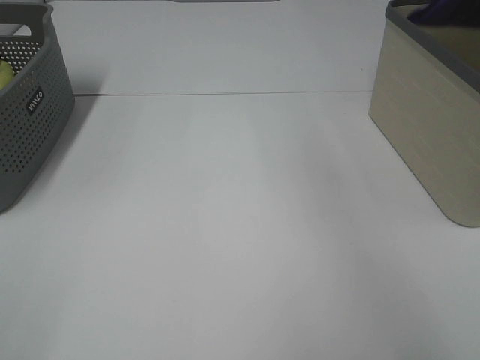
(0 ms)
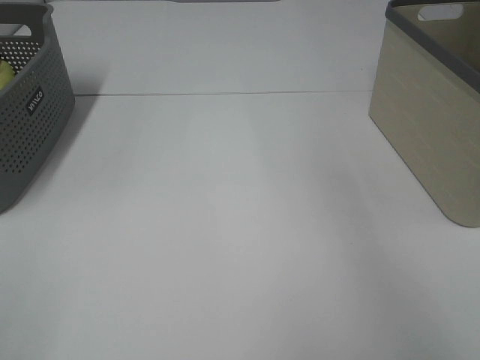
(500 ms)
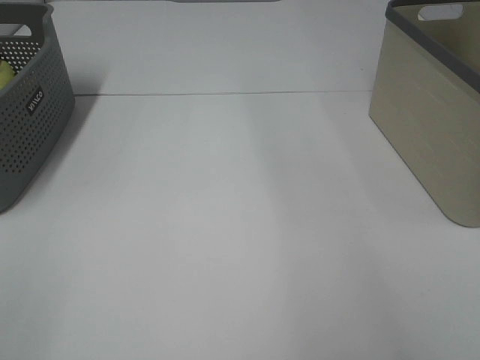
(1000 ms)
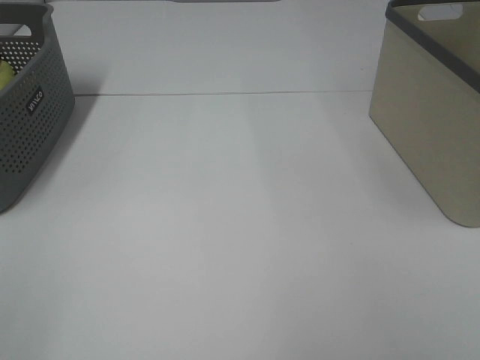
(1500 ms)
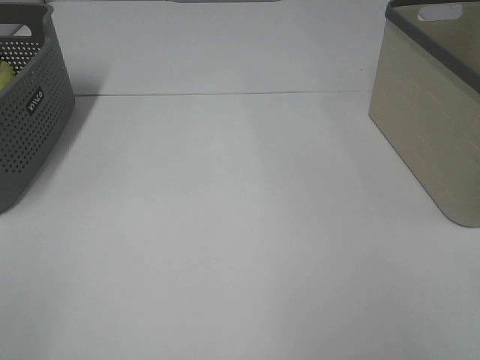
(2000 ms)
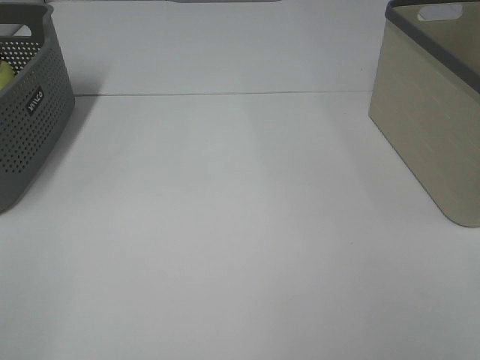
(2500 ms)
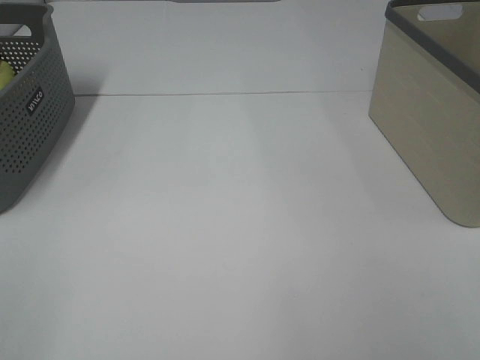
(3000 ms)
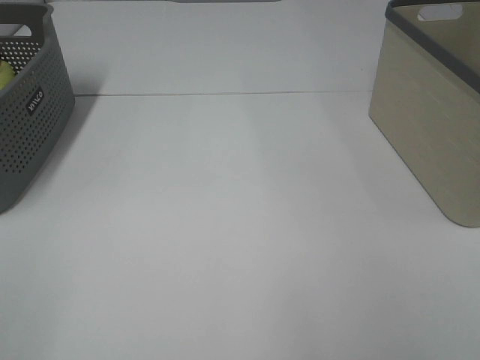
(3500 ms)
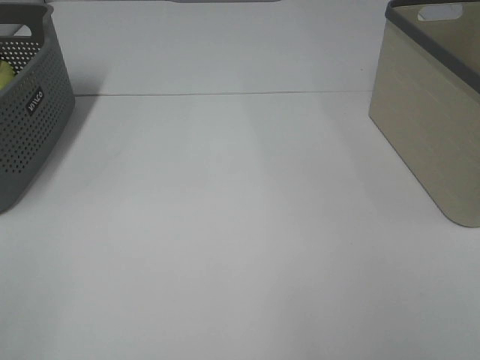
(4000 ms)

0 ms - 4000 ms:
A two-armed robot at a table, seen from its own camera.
0 ms - 2000 ms: The right gripper moves backward, about 40 cm, and opens.

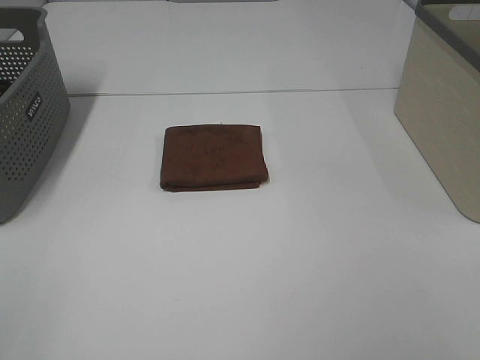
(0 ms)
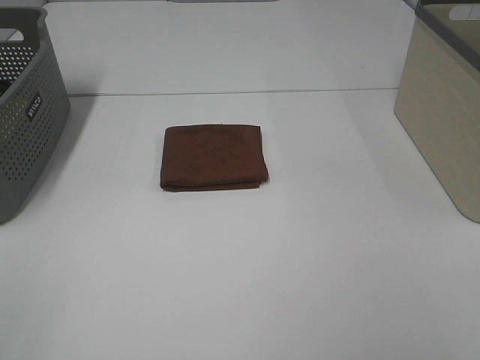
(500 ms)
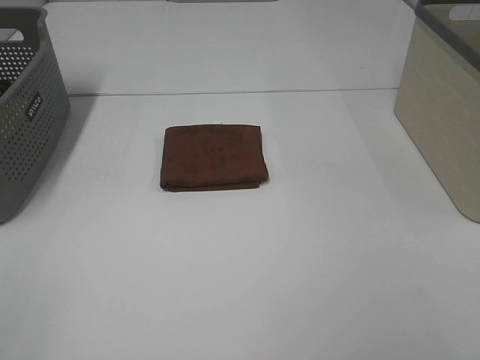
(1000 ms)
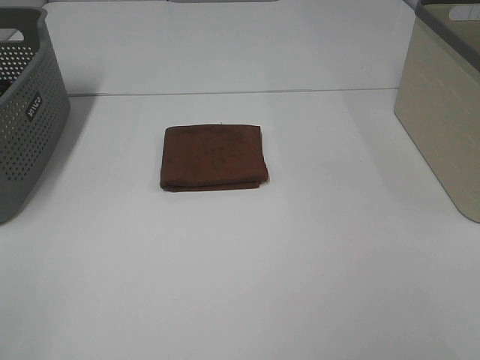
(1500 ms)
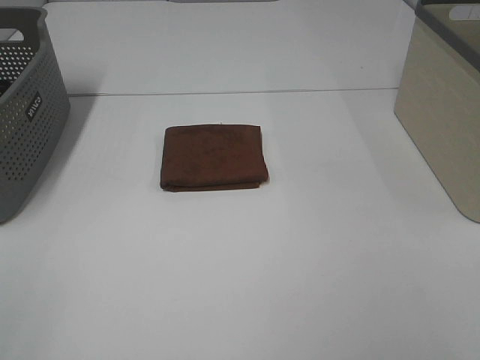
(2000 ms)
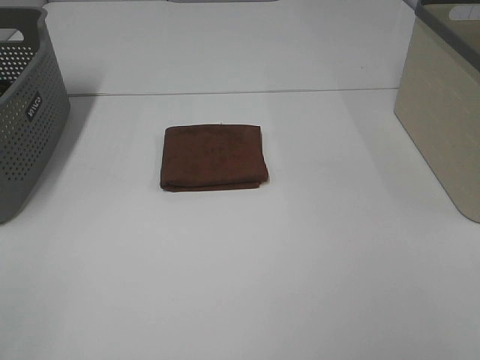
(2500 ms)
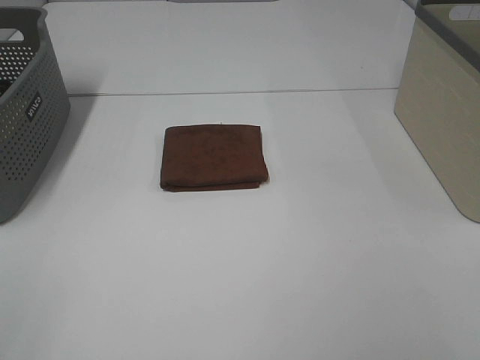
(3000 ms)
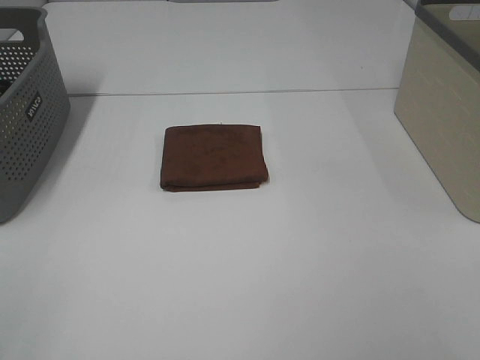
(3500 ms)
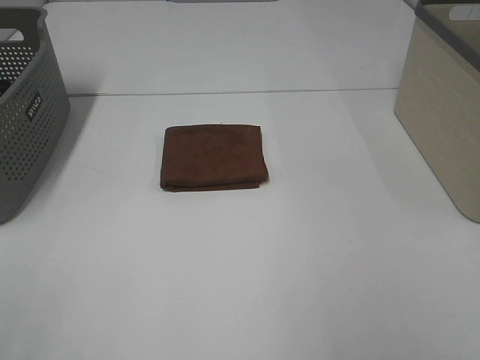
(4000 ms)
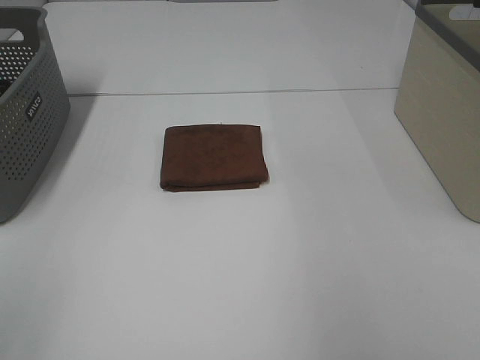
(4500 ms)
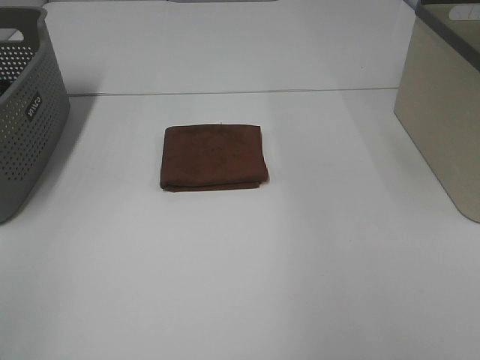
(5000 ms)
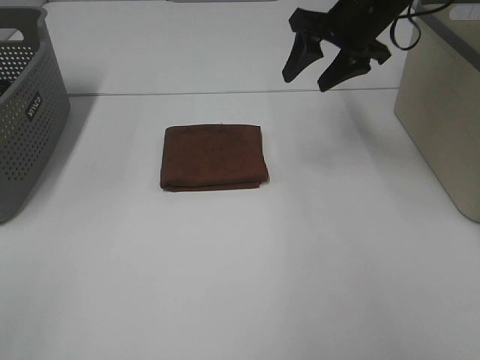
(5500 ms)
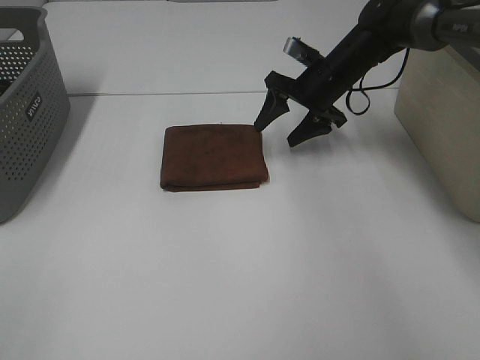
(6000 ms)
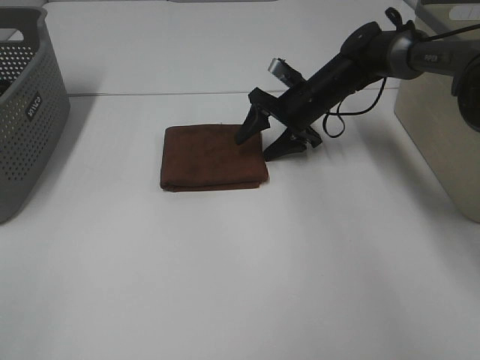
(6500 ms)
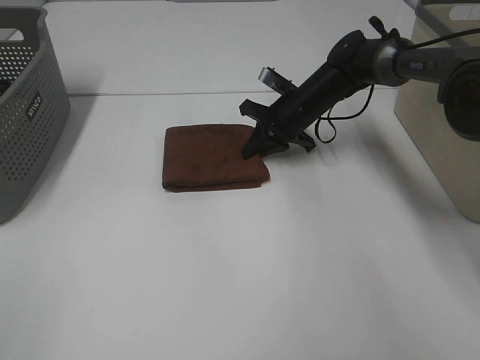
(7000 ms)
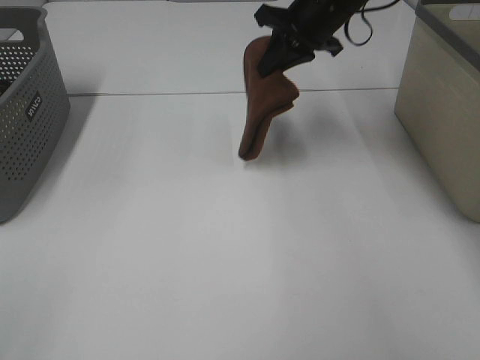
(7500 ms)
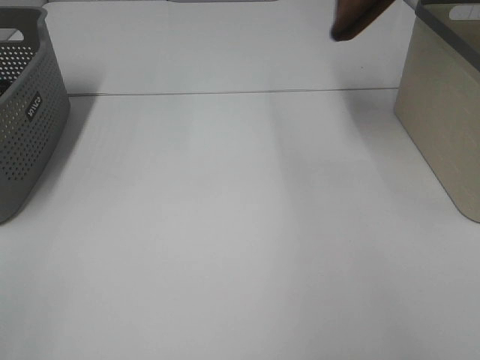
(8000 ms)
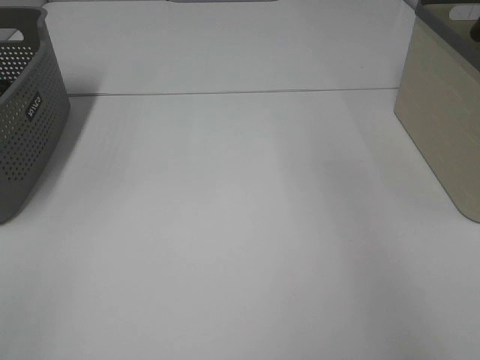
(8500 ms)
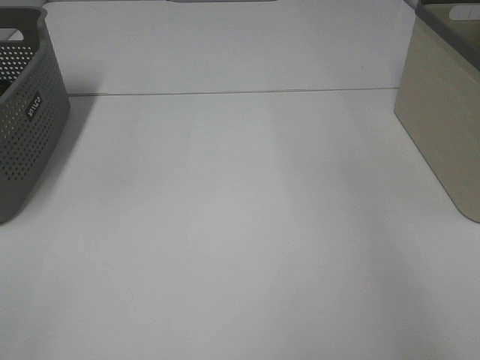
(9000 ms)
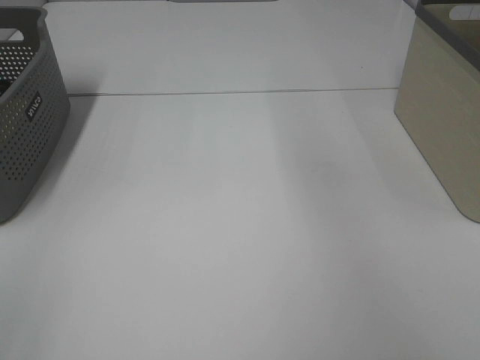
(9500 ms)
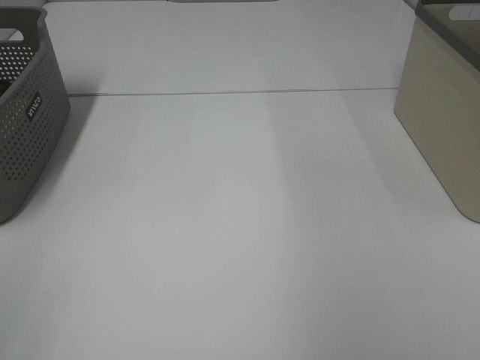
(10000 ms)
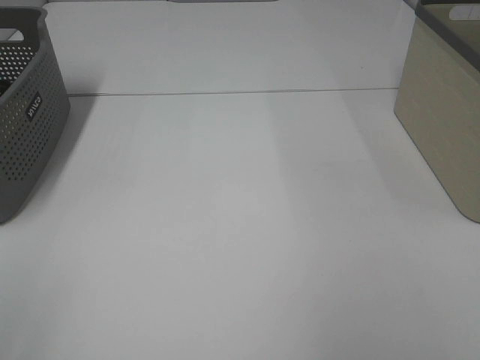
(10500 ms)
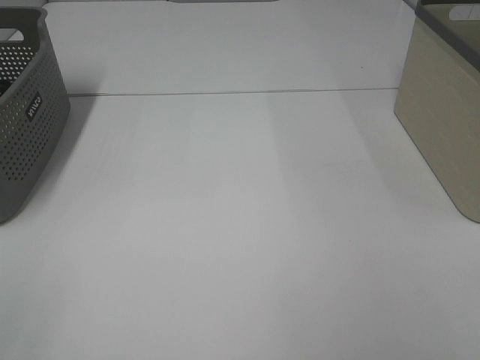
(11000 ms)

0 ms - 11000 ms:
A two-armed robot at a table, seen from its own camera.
Step, 0 ms - 6500 ms: Right hand: grab the folded brown towel.
Step, 7000 ms - 9000 ms: Right hand: place the brown towel in right basket.
0 ms - 3500 ms: The two grippers keep their place.
3500 ms - 5500 ms: The right gripper is displaced forward by about 50 cm.
5500 ms - 7500 ms: The right gripper moves some 15 cm downward and comes back, and closes its fingers.
7500 ms - 9000 ms: The right gripper goes roughly 25 cm to the right, and opens its fingers.

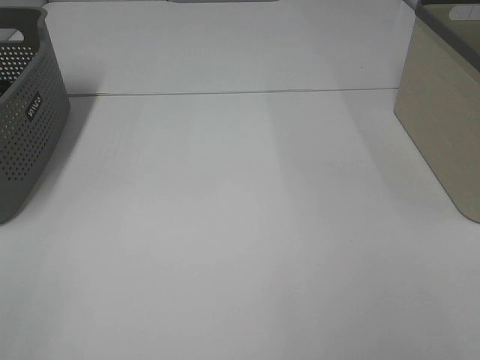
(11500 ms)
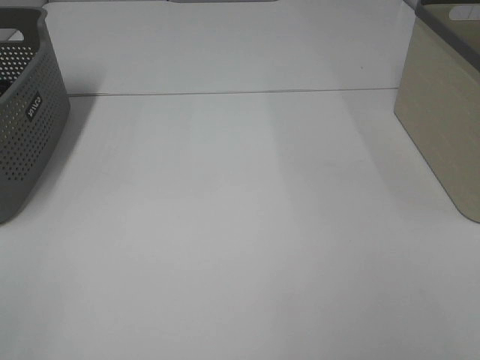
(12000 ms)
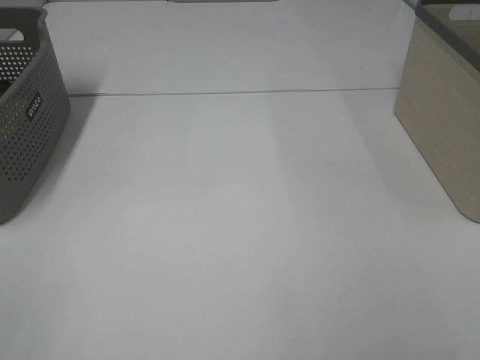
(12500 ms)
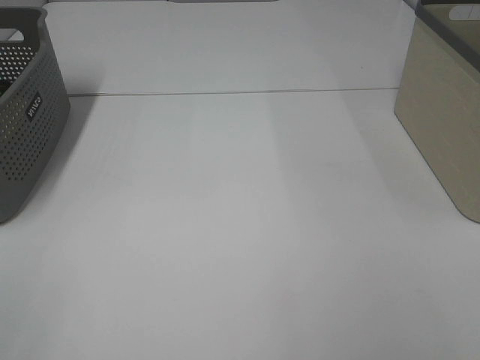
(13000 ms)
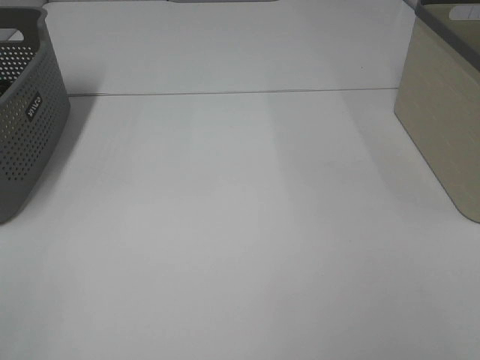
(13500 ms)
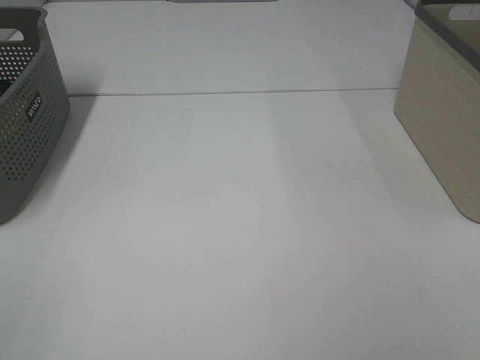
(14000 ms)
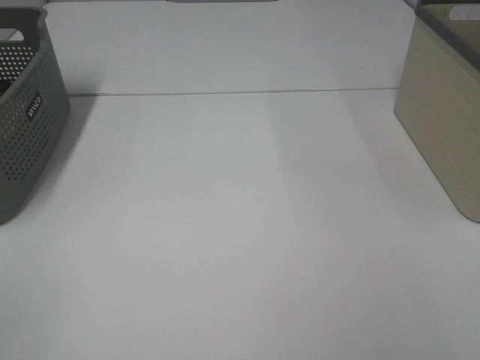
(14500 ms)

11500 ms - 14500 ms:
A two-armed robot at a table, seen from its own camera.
11500 ms - 13000 ms: Both grippers stay put.

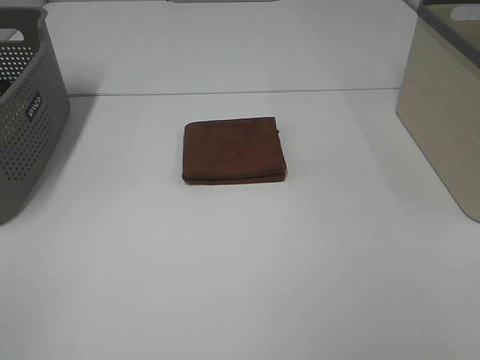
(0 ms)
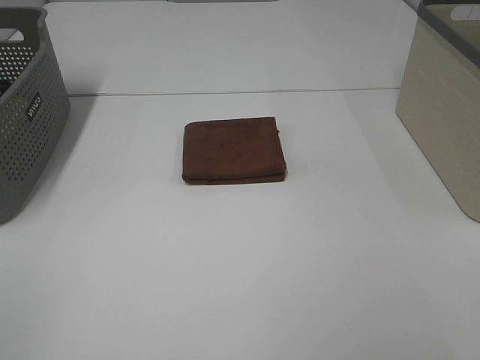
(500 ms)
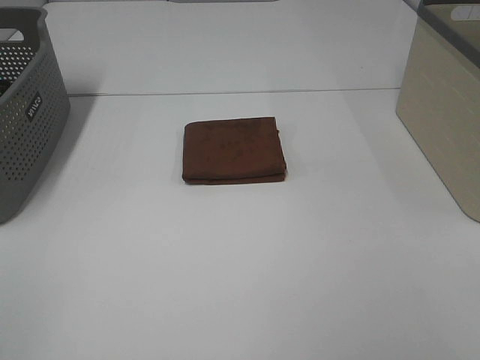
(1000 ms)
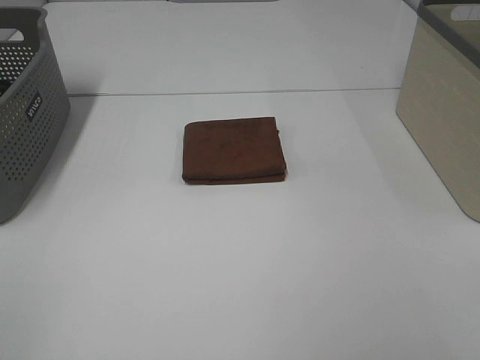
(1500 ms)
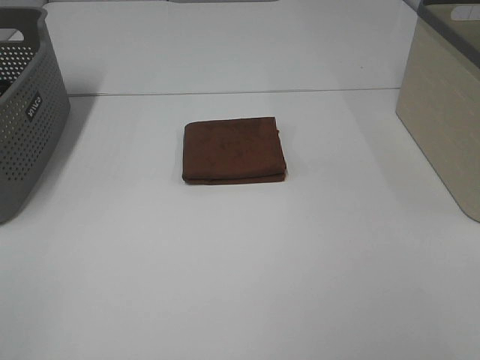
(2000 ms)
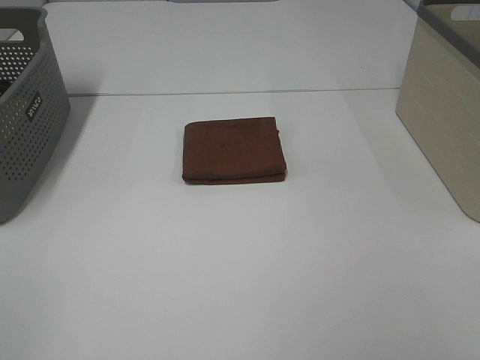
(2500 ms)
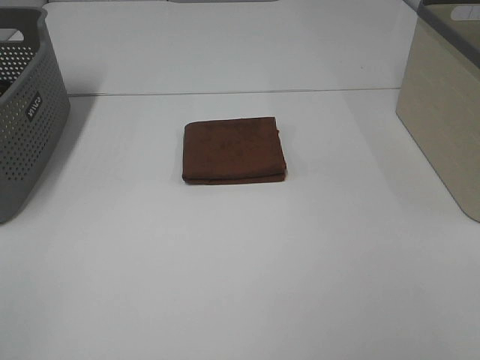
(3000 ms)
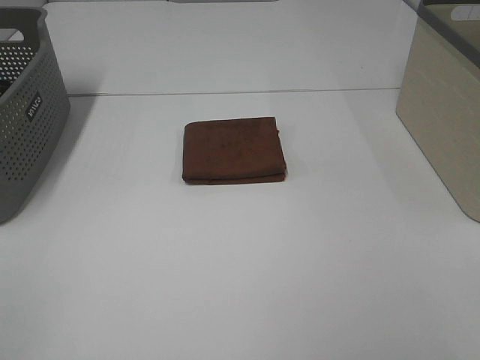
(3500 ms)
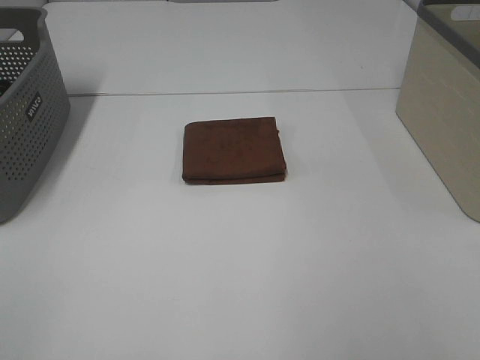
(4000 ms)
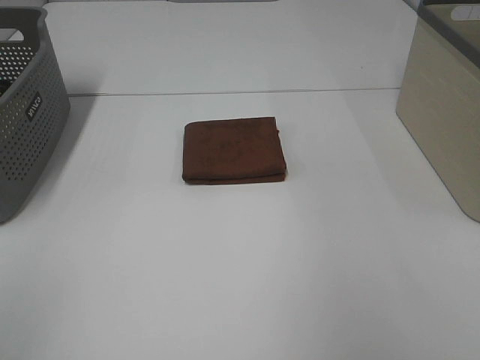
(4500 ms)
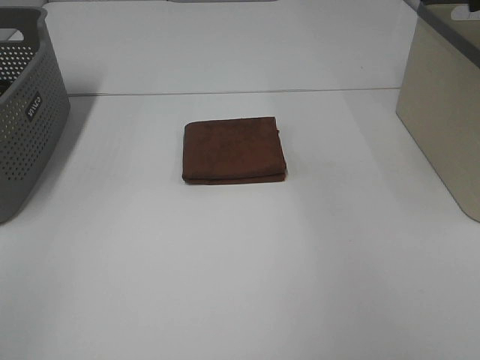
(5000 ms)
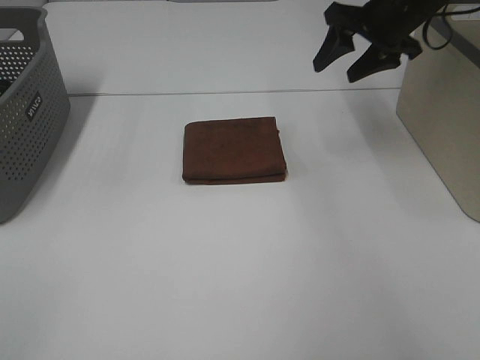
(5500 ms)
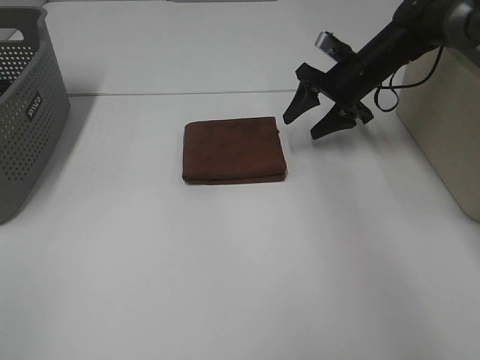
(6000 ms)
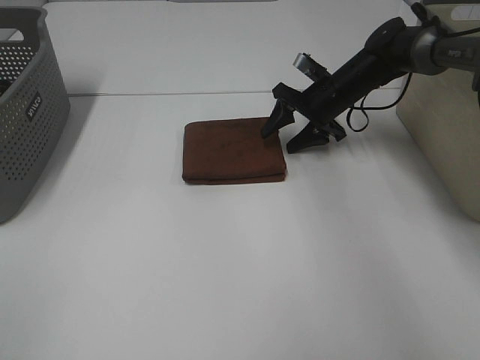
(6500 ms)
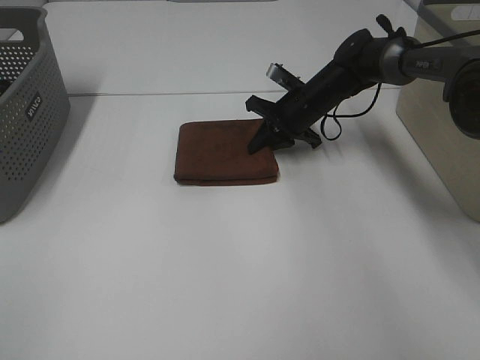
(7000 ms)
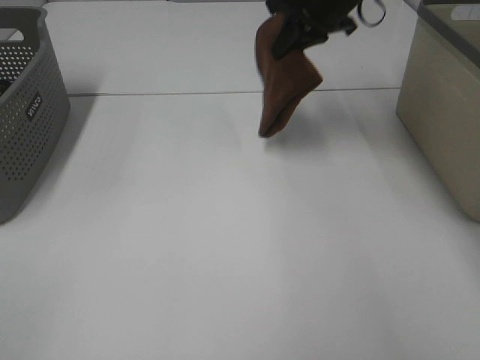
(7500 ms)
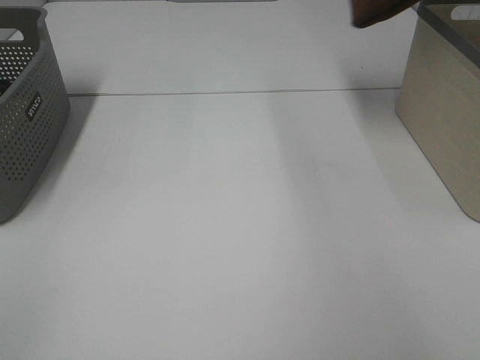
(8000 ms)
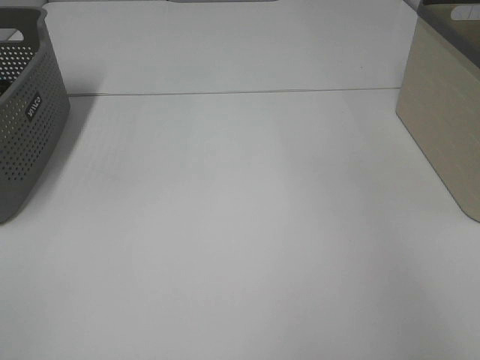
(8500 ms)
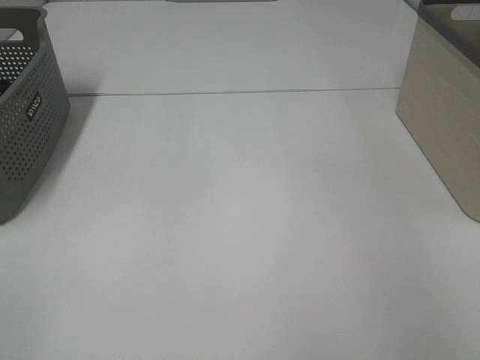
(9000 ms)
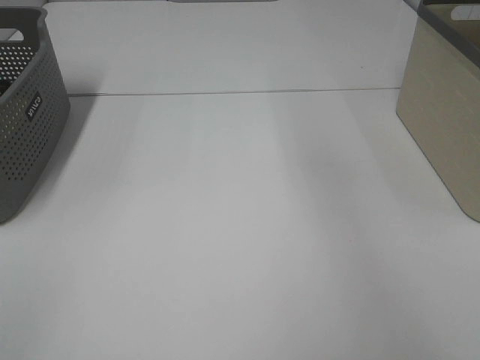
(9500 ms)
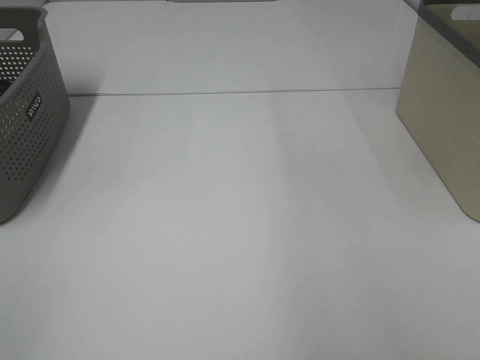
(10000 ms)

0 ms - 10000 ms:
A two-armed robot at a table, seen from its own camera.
Step, 0 ms - 7000 ms: Right hand: grab the folded brown towel.
Step, 7500 ms - 9000 ms: Right hand: place the brown towel in right basket.
0 ms - 2000 ms: The two grippers keep their place.
4000 ms - 6000 ms: The right gripper is displaced forward by about 50 cm.
6000 ms - 8000 ms: The right gripper moves upward, some 30 cm, and closes.
8000 ms - 10000 ms: The right gripper is displaced backward by approximately 5 cm, travels to the right and back again, some 15 cm each way, and opens its fingers.
